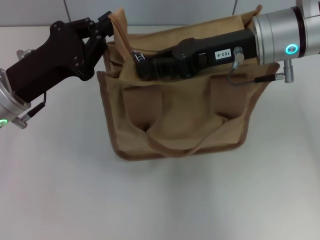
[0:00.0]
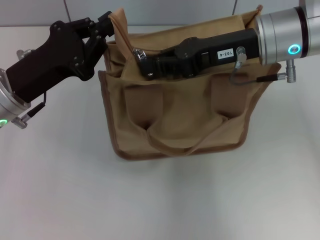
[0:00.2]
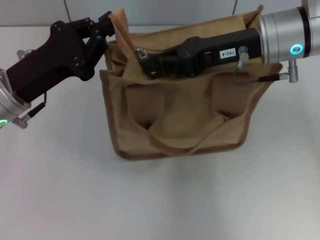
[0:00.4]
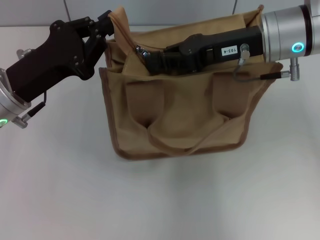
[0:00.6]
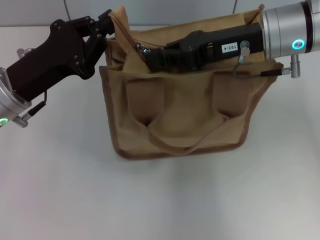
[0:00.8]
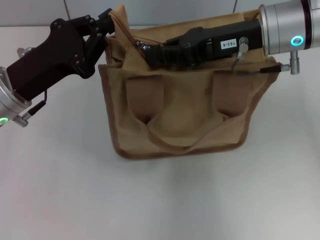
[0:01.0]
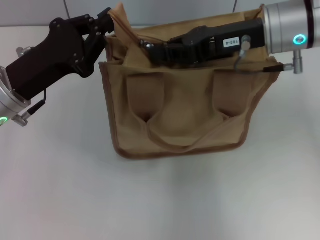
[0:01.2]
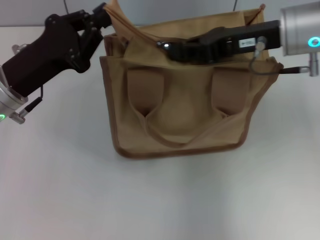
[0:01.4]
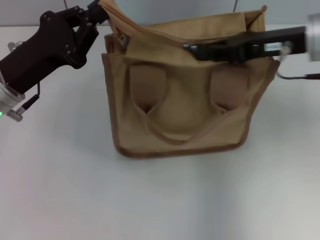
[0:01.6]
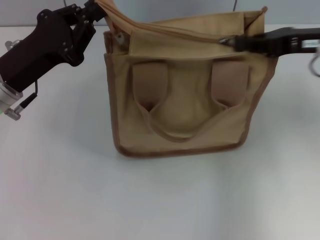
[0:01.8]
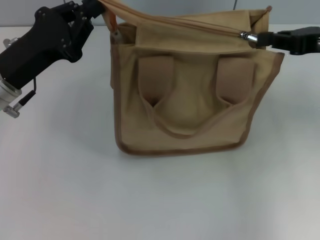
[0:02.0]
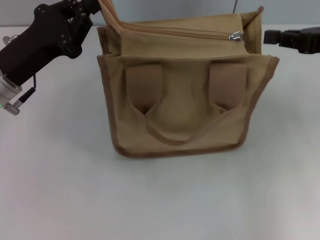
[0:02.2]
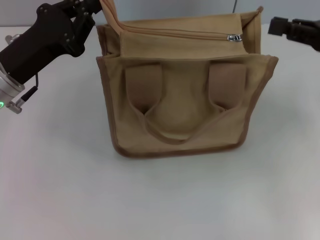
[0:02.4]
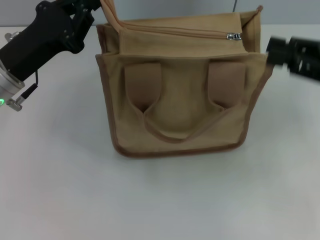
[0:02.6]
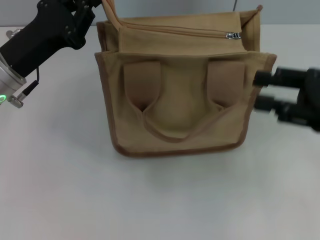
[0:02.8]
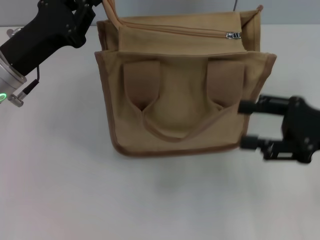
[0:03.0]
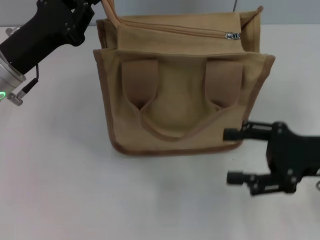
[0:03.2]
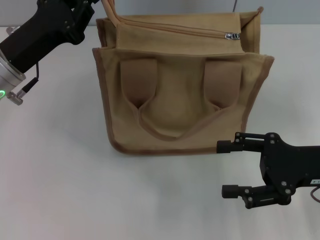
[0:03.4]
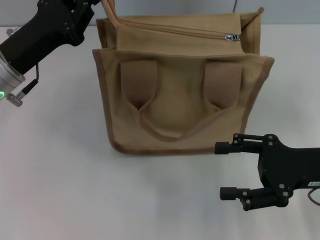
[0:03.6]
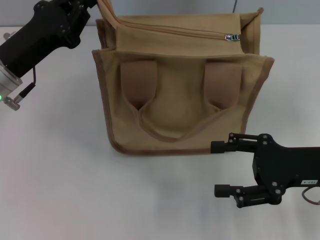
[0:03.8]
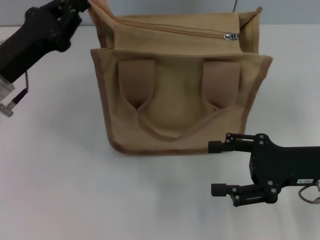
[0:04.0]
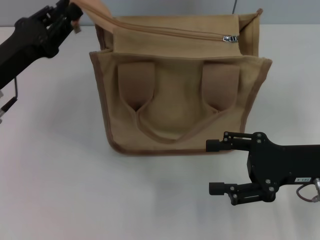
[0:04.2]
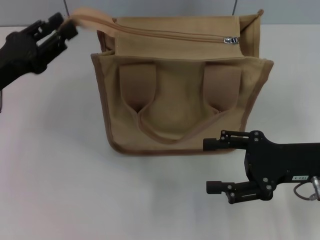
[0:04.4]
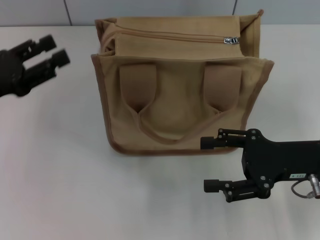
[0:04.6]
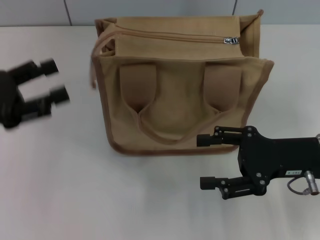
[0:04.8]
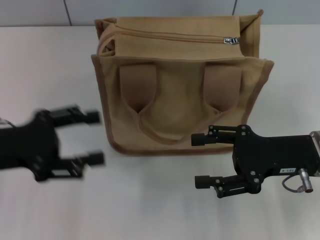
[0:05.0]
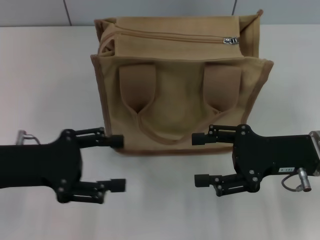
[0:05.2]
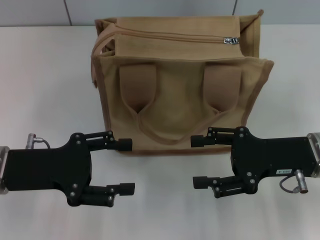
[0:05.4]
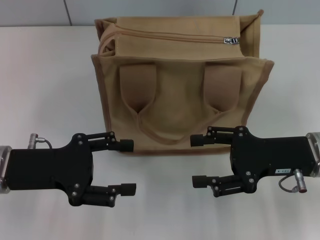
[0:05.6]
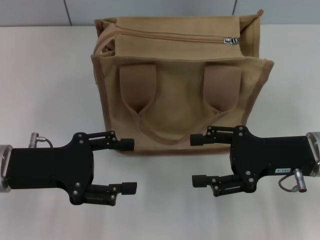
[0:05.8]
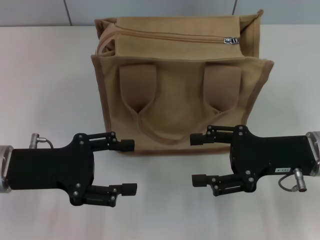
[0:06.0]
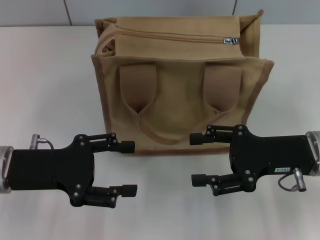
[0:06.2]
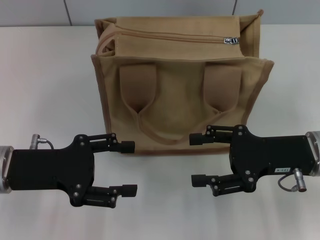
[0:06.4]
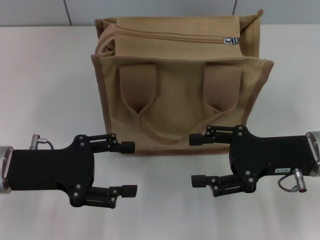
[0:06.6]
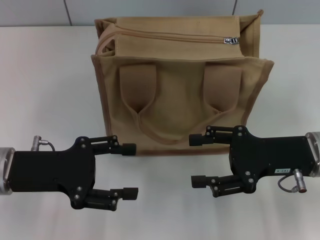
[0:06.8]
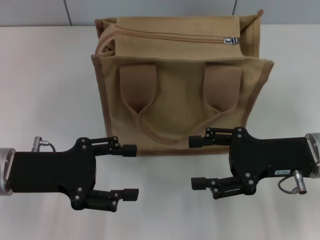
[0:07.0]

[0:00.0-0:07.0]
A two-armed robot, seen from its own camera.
Step, 0:00.0 to 0:02.0: Pull up the zipper with your right hand.
Step, 0:02.2 to 0:04.4: Grab the zipper with your left hand.
0:00.0 to 0:01.4: There are only small adjustments of the grippers.
0:01.4 to 0:02.8: The right gripper goes roughly 15 cm to the right, backward and downward, and opens.
0:02.8 to 0:04.2: The right gripper shifts about 5 cm downward, and opens up.
0:04.2 to 0:05.6: The left gripper is displaced backward by about 5 cm, and opens up.
0:05.6 to 0:07.0: Neither gripper changes place.

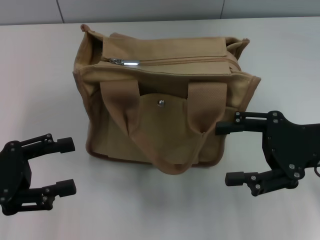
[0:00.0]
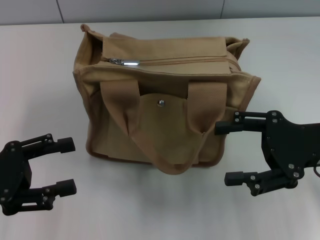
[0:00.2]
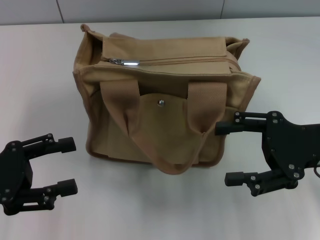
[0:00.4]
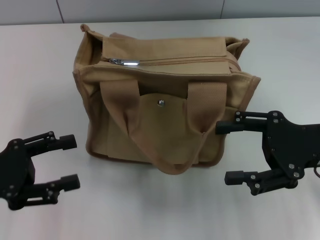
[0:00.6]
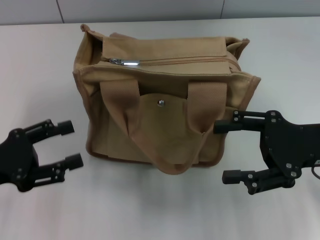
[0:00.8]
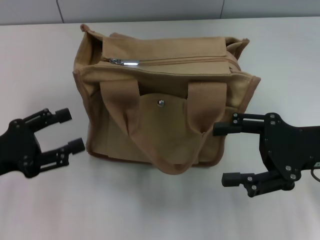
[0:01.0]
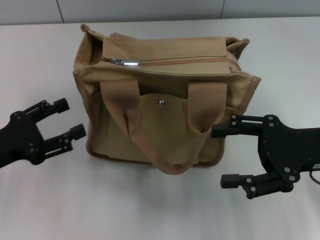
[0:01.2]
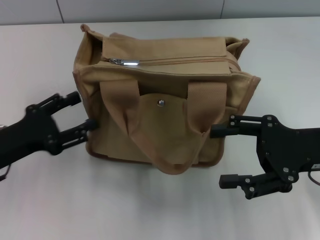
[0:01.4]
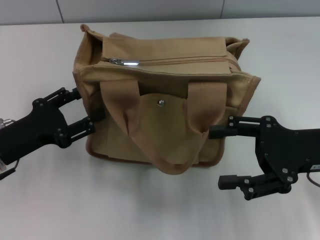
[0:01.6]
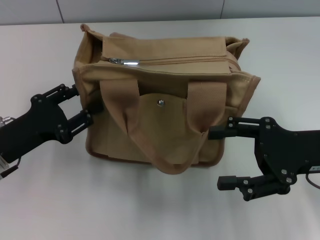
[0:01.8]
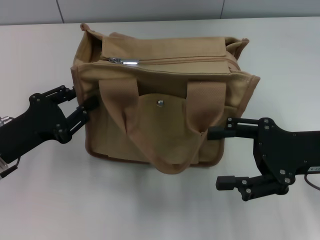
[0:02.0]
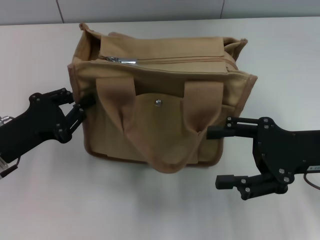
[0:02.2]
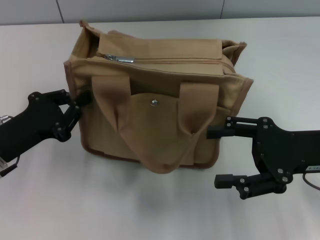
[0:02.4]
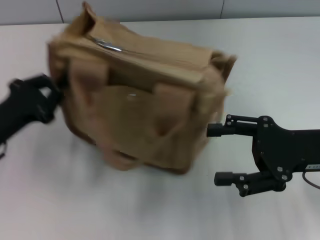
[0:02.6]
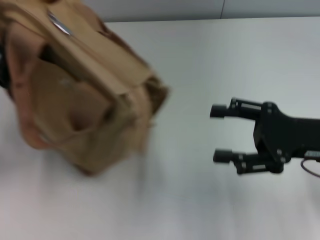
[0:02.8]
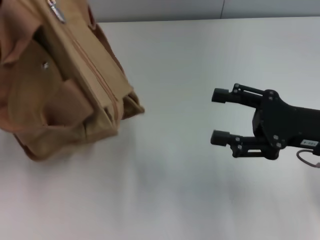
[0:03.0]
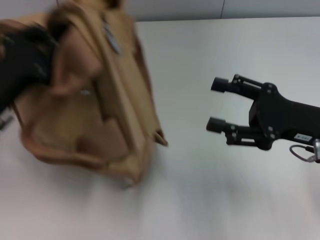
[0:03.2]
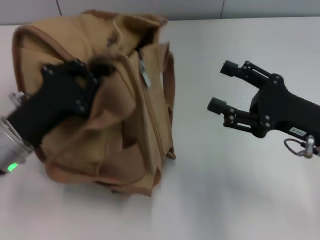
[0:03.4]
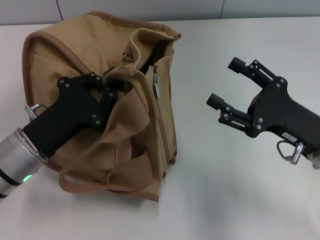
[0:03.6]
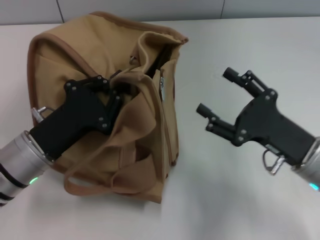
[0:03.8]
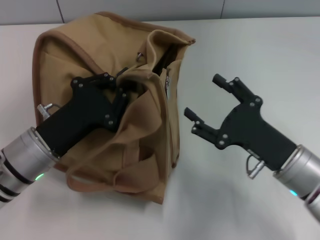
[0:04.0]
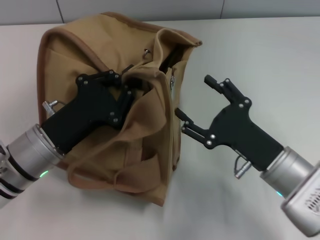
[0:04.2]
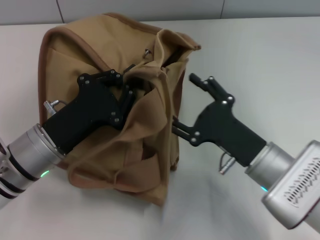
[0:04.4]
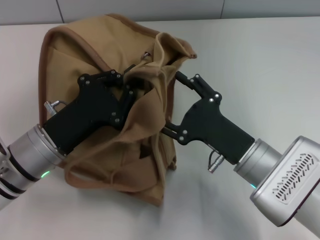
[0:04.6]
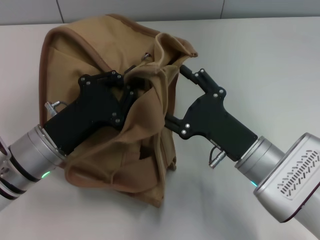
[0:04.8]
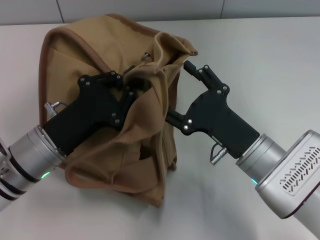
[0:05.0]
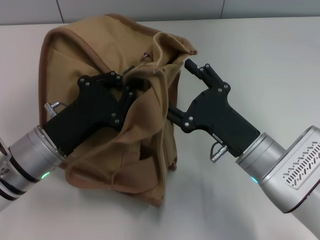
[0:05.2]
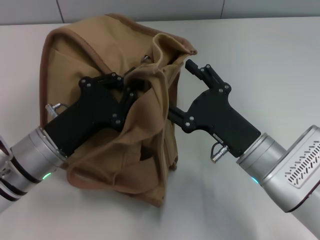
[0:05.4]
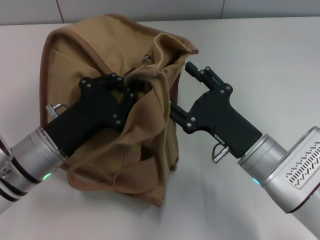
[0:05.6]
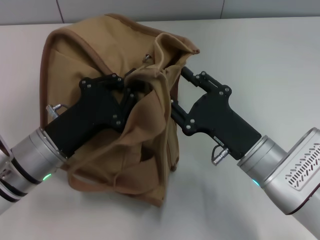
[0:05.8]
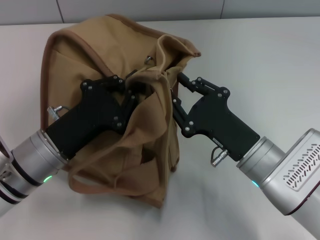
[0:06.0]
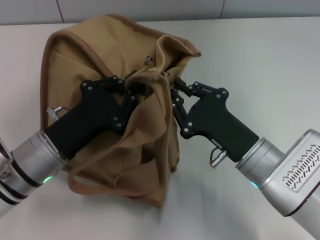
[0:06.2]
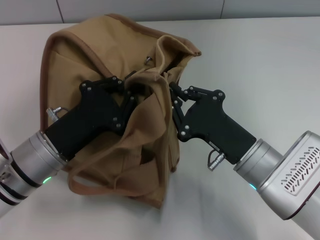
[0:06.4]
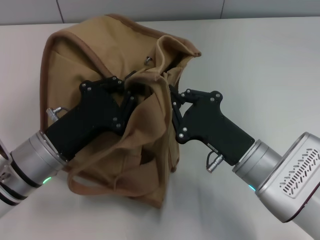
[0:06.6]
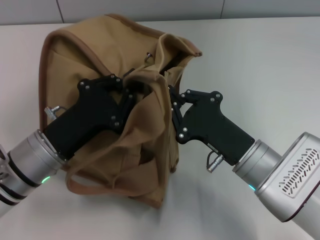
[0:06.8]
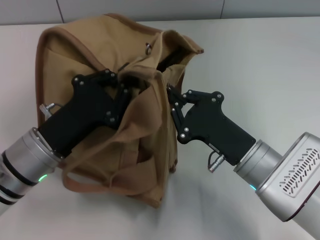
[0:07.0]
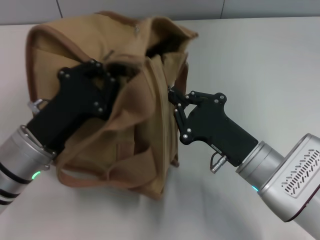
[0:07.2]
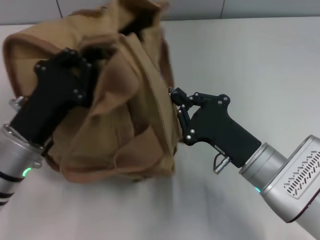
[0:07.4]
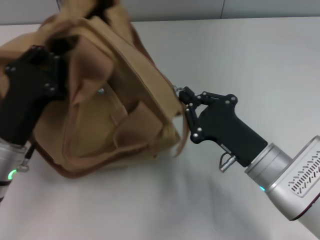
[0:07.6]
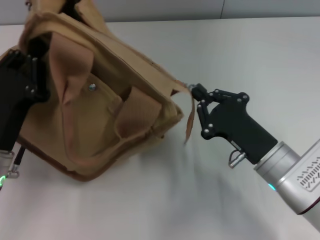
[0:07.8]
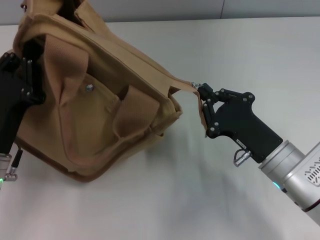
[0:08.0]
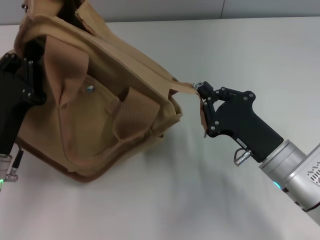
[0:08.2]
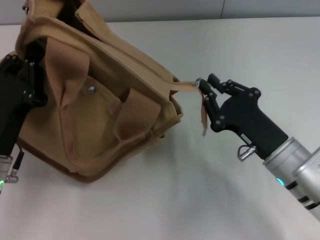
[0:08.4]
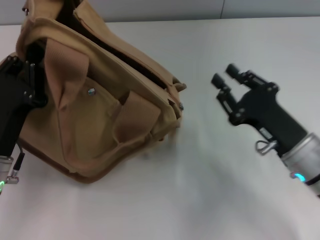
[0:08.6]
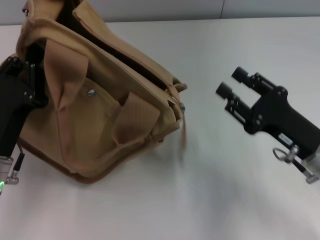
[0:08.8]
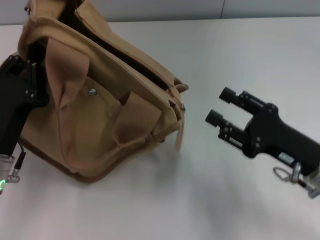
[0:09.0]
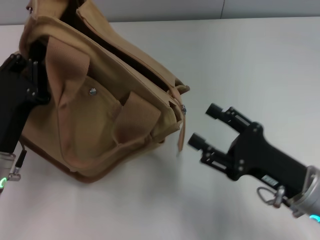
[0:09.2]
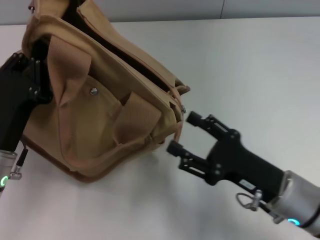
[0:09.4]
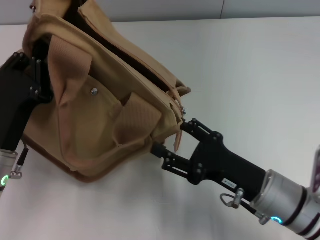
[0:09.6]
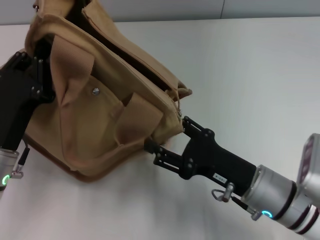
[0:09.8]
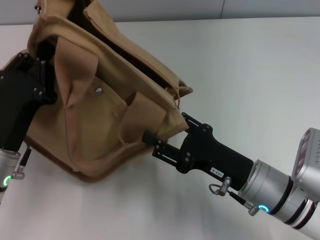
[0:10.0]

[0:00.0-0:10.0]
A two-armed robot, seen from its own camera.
Step, 0:00.0 to 0:08.4: Pull open the zipper with your right hand.
0:00.0 to 0:01.4: The left gripper shifts by about 5 cm.
0:01.4 to 0:02.8: The left gripper closes.
0:02.8 to 0:04.2: The left gripper goes roughly 10 cm to the right, while the right gripper moves downward and to the left, approximately 10 cm.
0:04.2 to 0:05.8: The grippers move only a little.
0:05.8 to 0:07.2: The right gripper closes.
0:07.2 to 0:08.6: The right gripper heads to the right, covering some 5 cm.
0:08.6 to 0:10.0: The right gripper moves to the left, roughly 5 cm, and opens its fingers.

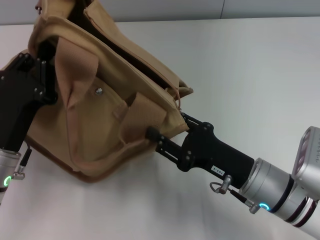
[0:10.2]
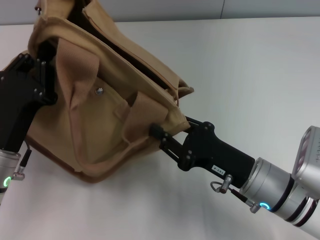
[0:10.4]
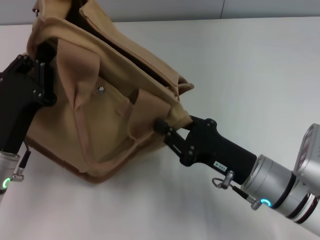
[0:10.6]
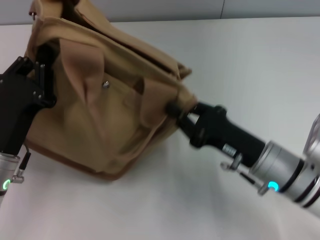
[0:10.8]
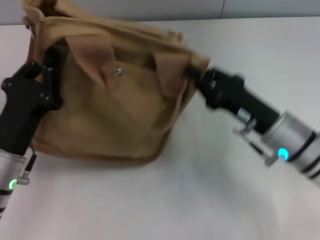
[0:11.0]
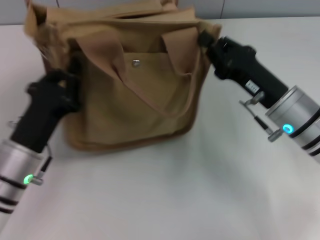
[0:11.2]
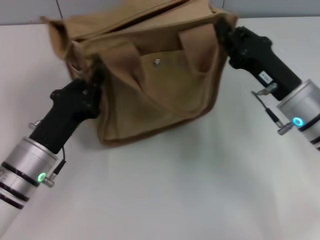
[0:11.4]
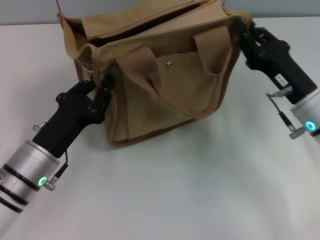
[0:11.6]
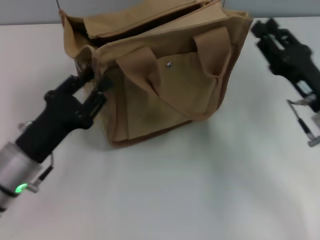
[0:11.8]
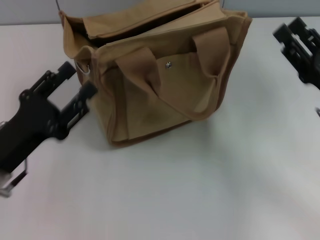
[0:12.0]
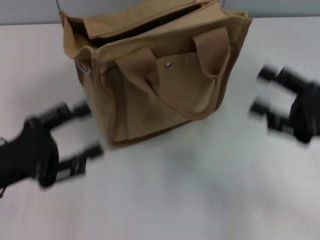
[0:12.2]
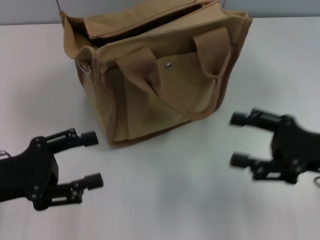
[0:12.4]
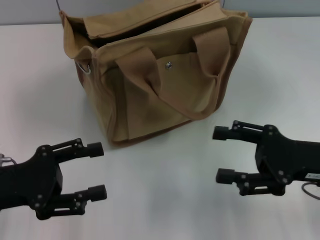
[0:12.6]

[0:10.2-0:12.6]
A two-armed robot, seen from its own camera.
Step, 0:10.2 to 0:11.8: Grab the bag with your left hand.
0:10.2 to 0:11.4: The right gripper goes some 10 cm forward and to the right, and closes its fingers.
0:11.4 to 0:12.6: The left gripper goes about 10 cm to the left and upward, and opens its fingers, while the right gripper goes roughly 10 cm backward and to the right, and opens its fingers.

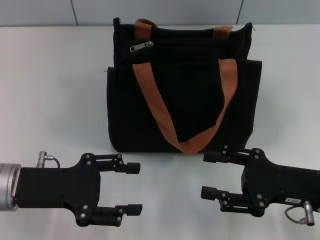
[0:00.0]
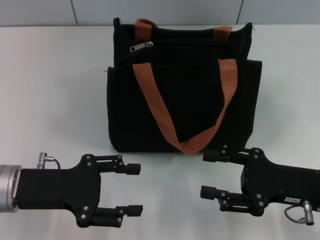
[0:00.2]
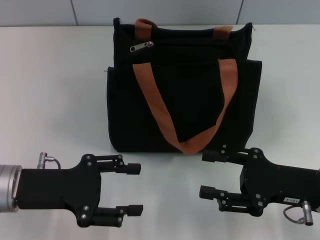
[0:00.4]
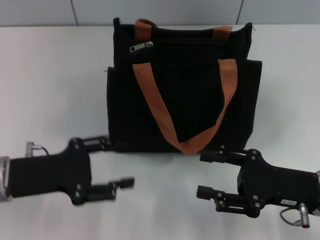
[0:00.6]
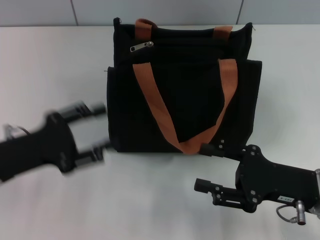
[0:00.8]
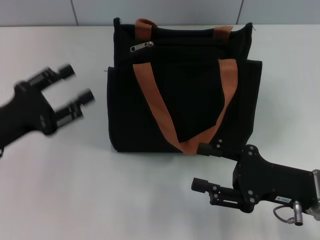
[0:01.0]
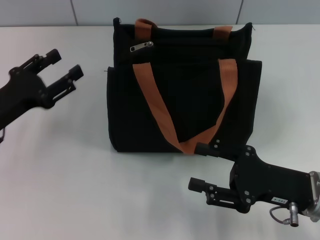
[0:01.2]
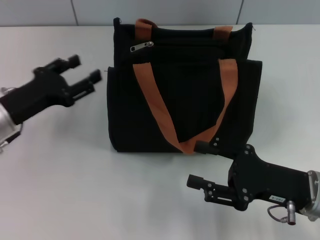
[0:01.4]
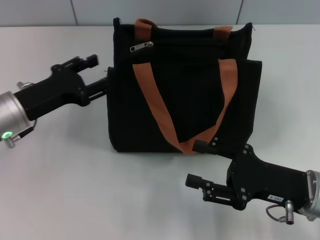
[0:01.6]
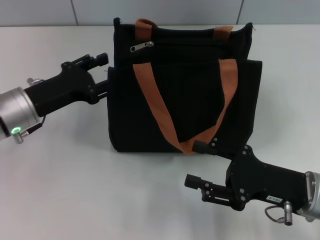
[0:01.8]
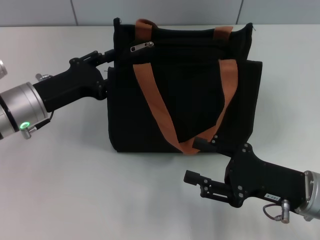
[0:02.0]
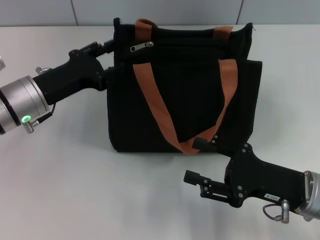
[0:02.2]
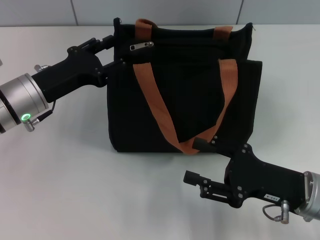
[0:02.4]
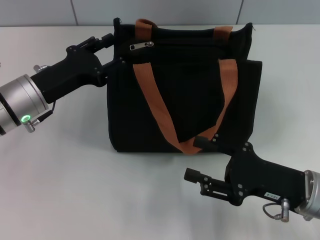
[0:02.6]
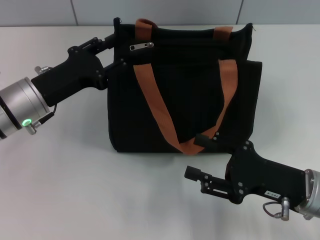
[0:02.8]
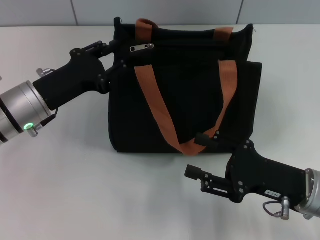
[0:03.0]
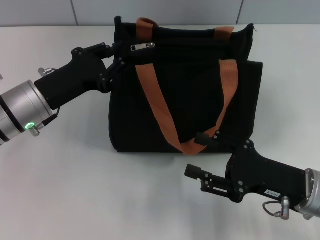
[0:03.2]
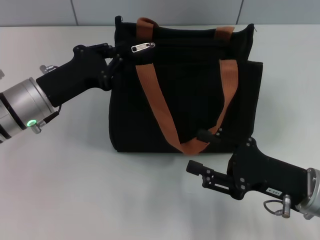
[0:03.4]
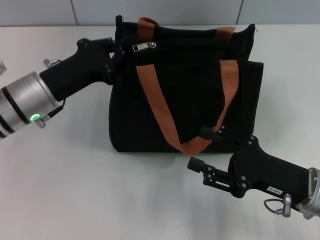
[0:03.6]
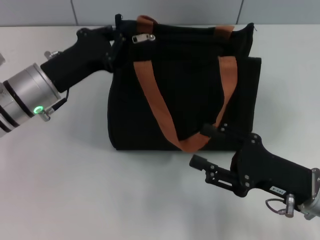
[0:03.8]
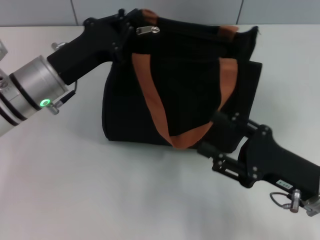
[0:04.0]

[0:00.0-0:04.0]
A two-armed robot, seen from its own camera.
0:00.0 to 0:01.4: The left gripper heads forward, covering roughly 5 cm.
0:01.4 to 0:02.6: The left gripper changes place by some 5 cm.
0:02.6 to 0:04.0: The left gripper closes its fingers.
